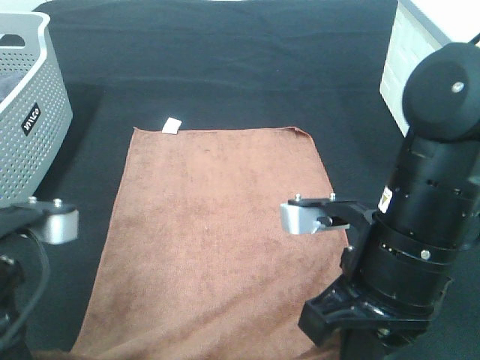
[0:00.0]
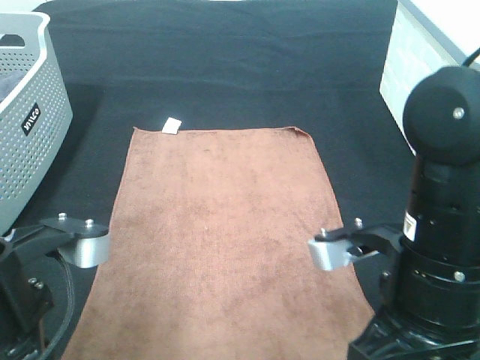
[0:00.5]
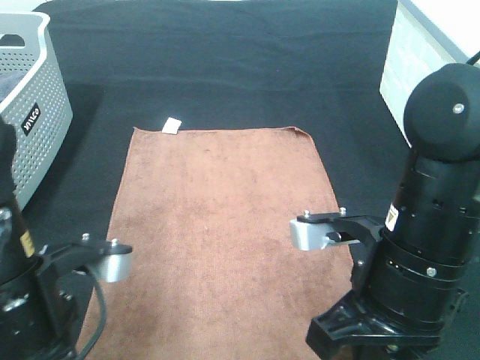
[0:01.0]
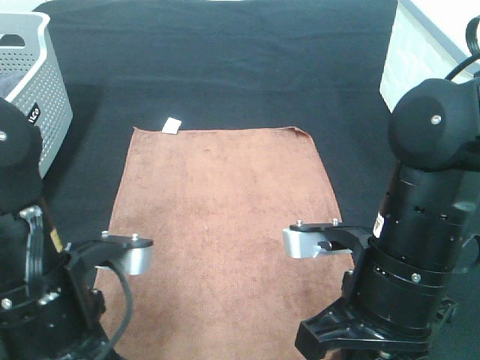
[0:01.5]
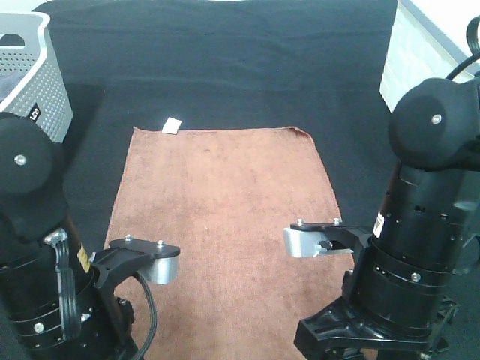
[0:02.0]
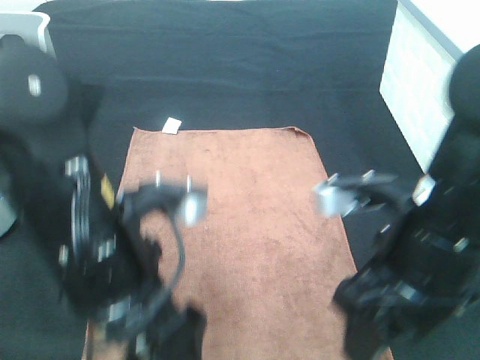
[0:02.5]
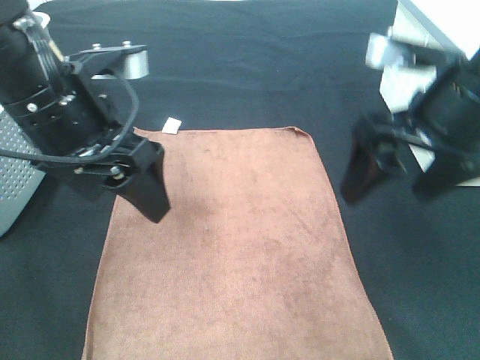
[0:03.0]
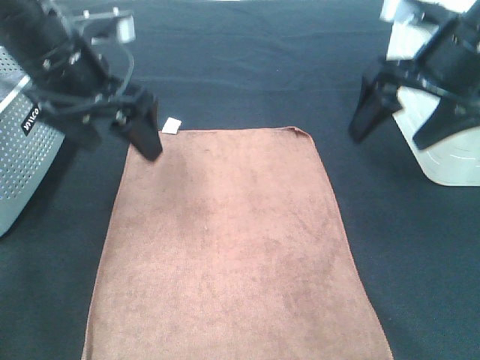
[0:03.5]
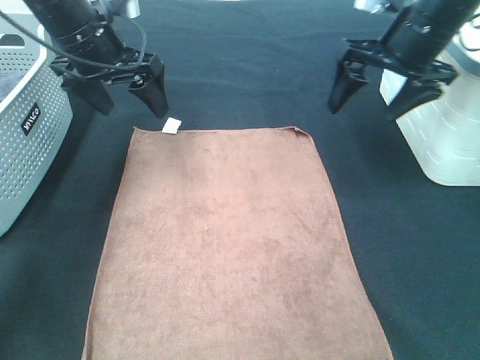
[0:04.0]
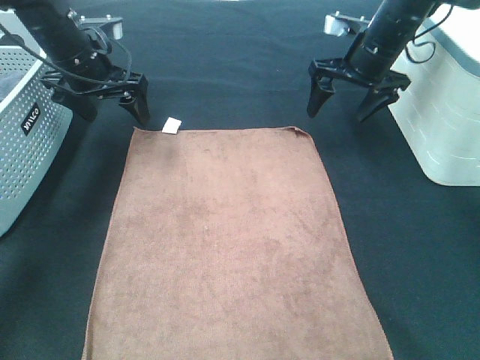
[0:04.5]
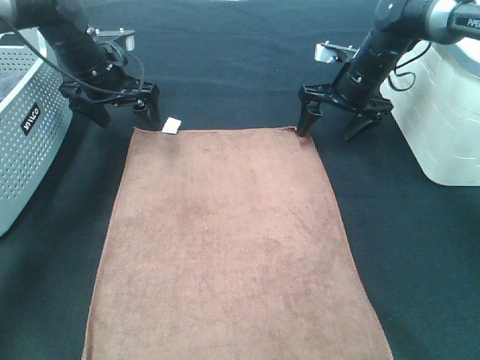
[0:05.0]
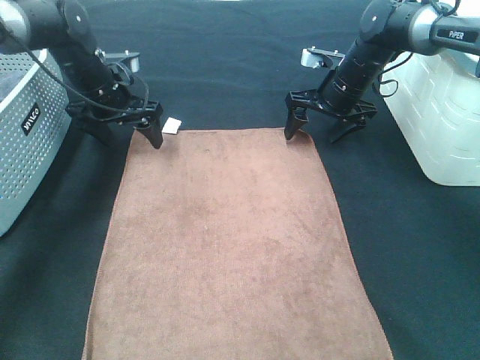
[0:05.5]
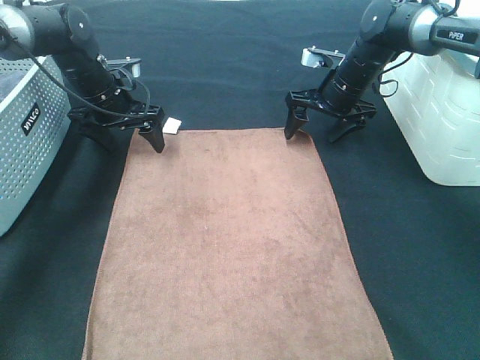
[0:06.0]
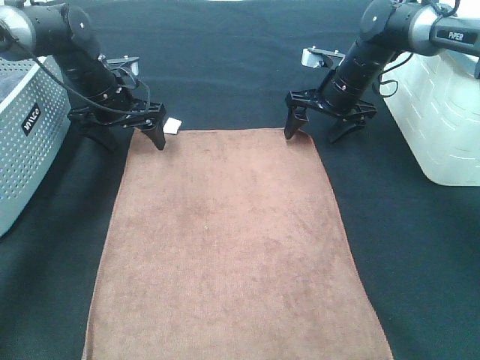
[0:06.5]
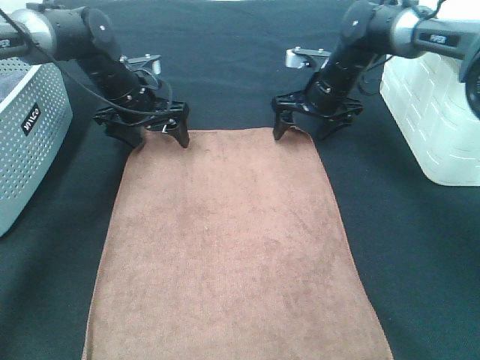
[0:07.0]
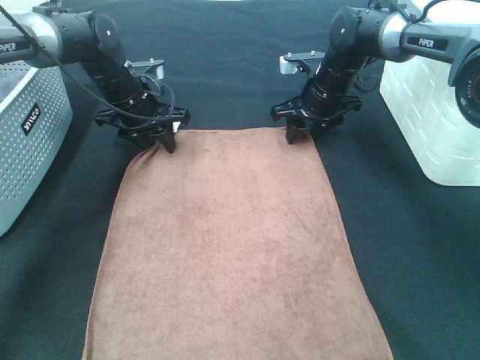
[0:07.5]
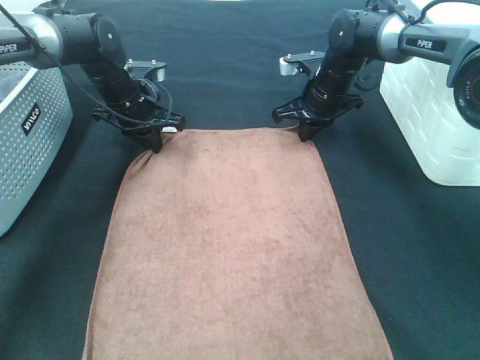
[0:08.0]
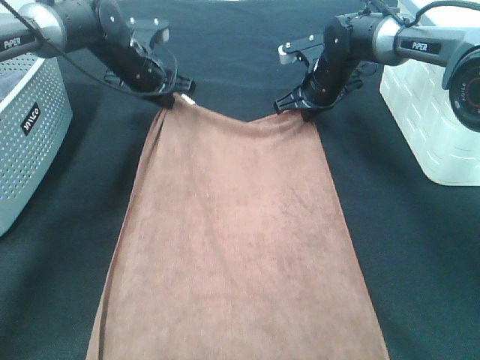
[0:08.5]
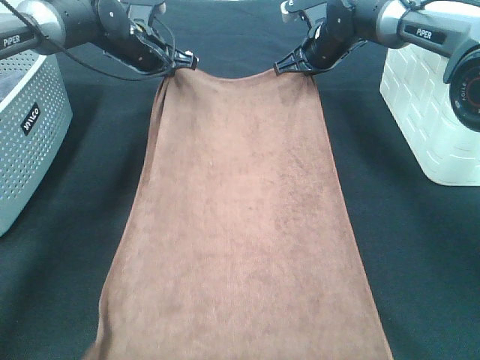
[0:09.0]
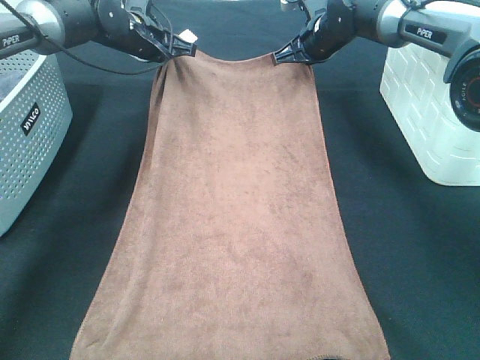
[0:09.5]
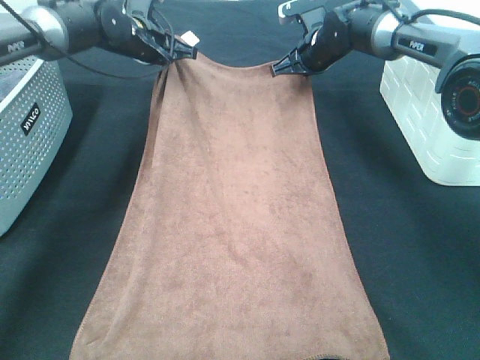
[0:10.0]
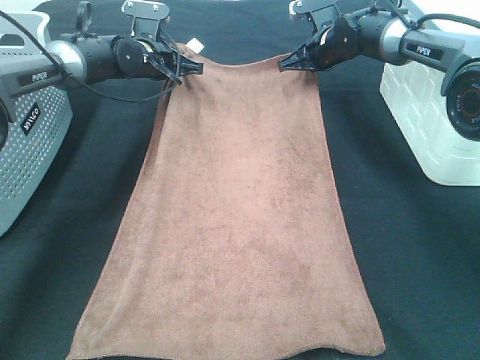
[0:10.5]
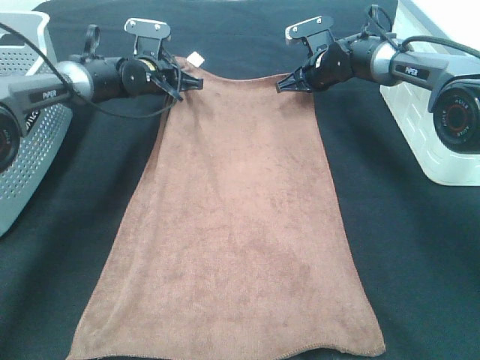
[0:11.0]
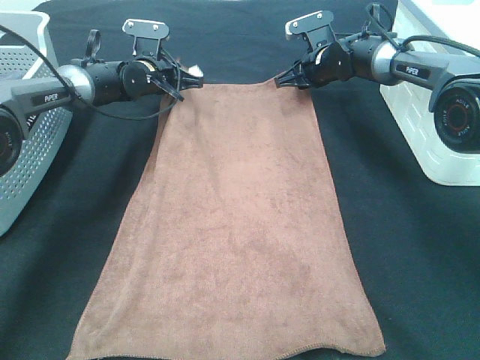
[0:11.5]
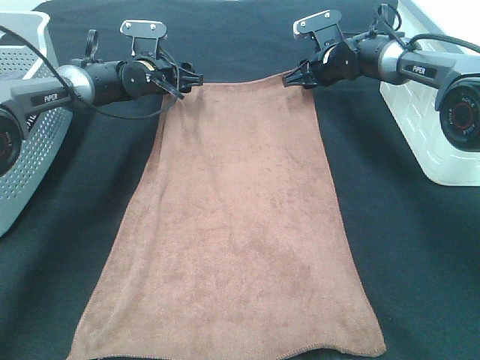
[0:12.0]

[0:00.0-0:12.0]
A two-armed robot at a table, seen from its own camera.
Task of the whole recording: Remove the towel and place it.
Step, 0.0 to 5.0 s: Left hand:adjust the brown towel.
Step, 0.0 to 6.5 s: Right hand:adjust the brown towel.
0.0 to 2.0 s: The left gripper is displaced to the right by about 5 cm, and opens its fingers. The right gripper opens its fingers.
2.0 to 4.0 s: The grippers both shift forward by approximately 25 cm.
4.0 to 6.0 s: Both grippers move downward and forward, some 15 cm.
6.0 to 8.0 s: The left gripper closes. Meanwhile the right gripper closes its fingers.
8.0 to 10.0 s: The right gripper is displaced forward by about 5 cm. The left gripper is displaced forward and upward by some 10 cm.
10.0 to 12.0 s: The left gripper moves downward, some 5 cm, and opens its fingers. Meanwhile the right gripper opens up.

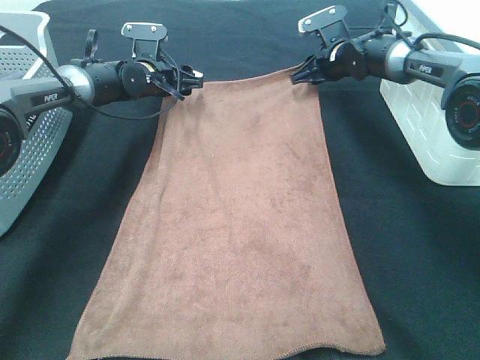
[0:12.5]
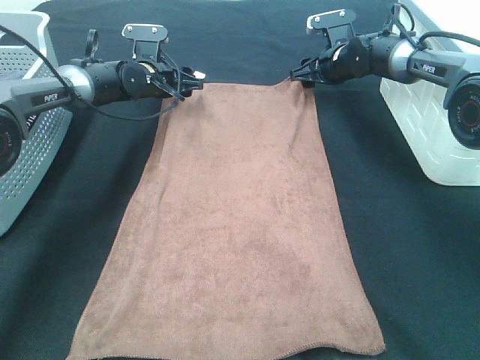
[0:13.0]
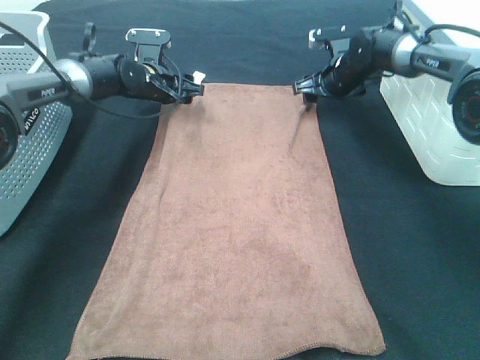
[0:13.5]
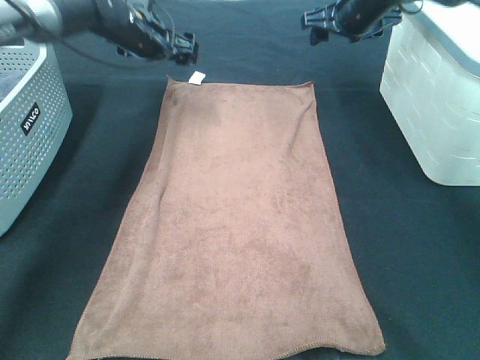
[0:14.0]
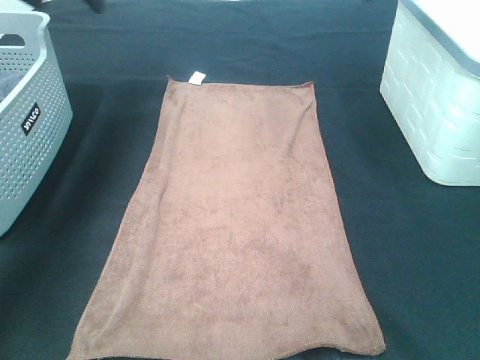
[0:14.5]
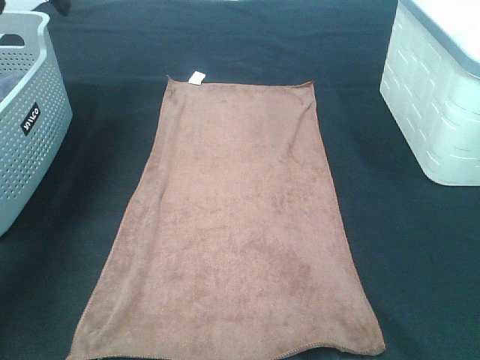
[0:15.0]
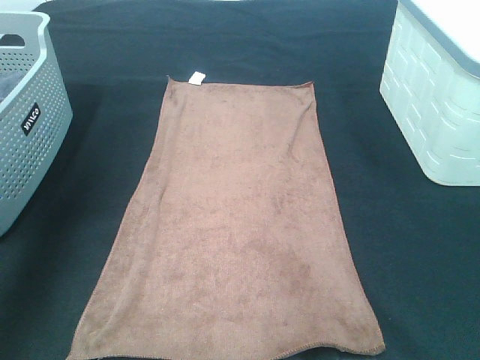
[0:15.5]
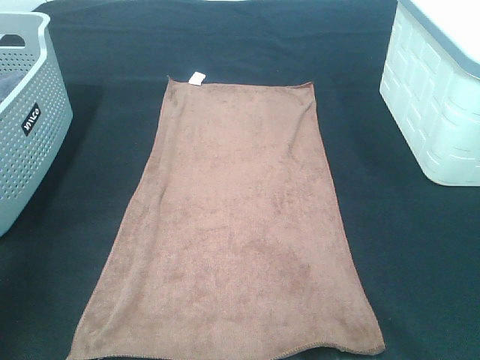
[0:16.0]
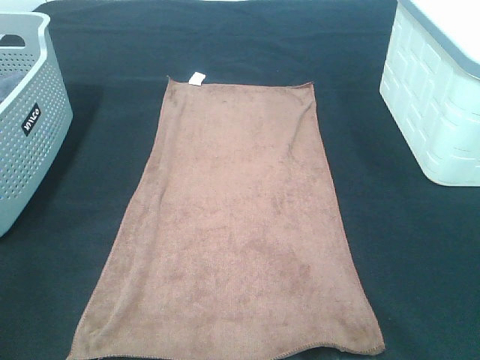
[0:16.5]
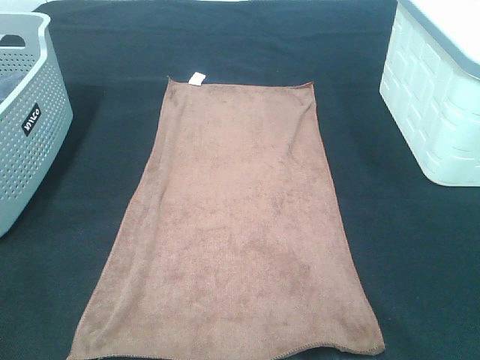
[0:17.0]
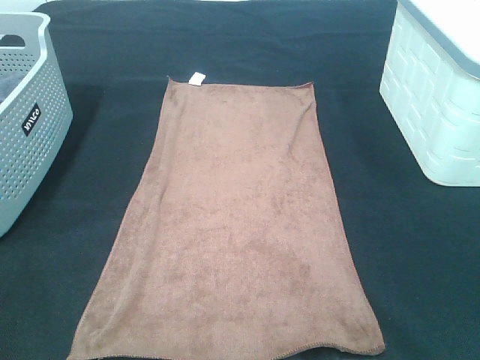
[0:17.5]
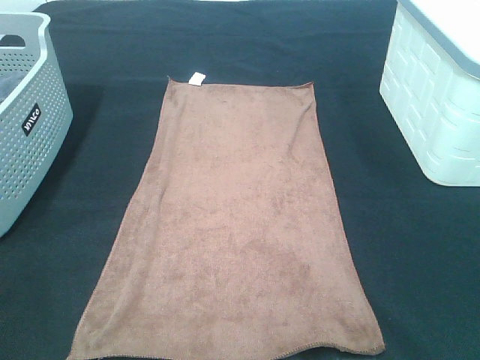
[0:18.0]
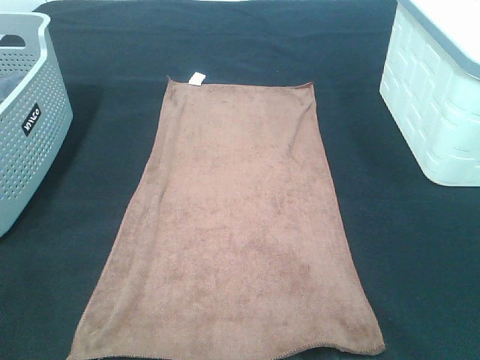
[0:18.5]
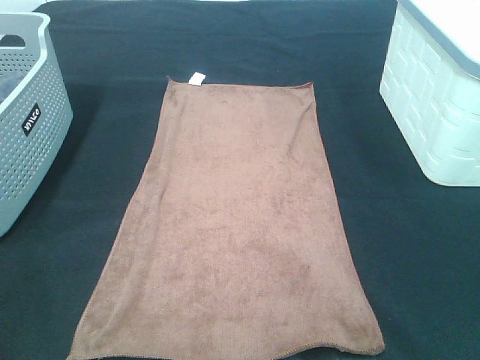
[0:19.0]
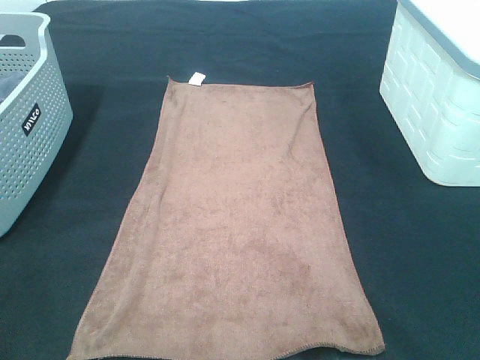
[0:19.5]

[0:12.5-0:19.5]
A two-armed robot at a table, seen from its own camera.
Task of the whole recording: Remove the towel and place it.
12.5 to 14.5 s: The left gripper shifts some 25 cm upward and to the left, while the right gripper shifts roughly 25 cm upward and backward.

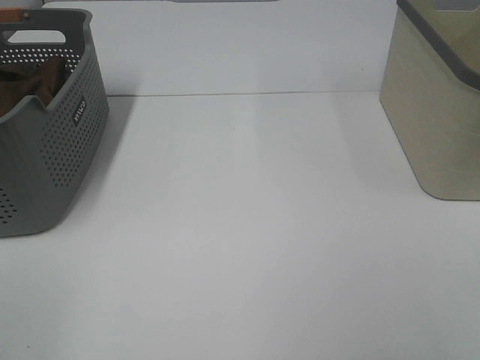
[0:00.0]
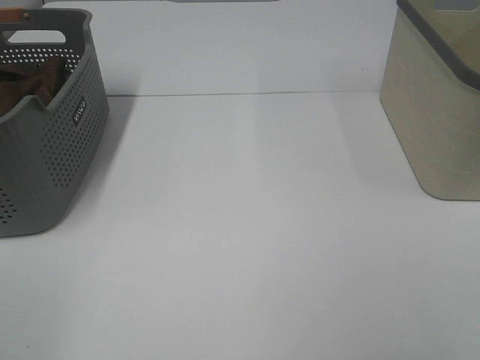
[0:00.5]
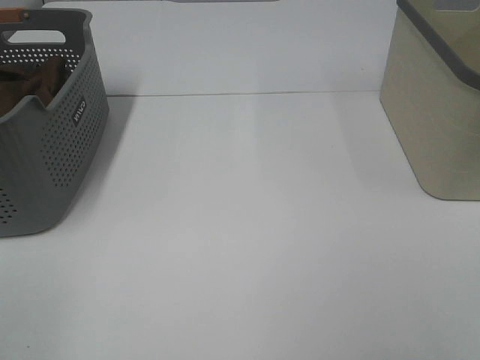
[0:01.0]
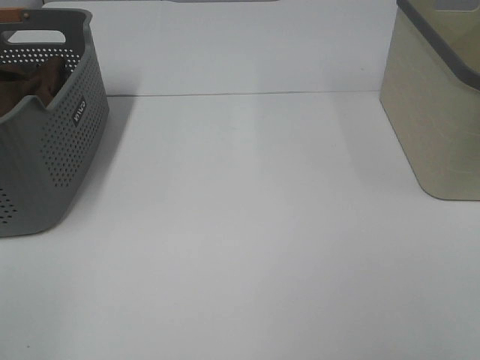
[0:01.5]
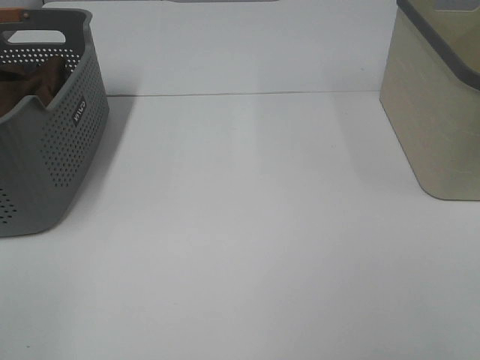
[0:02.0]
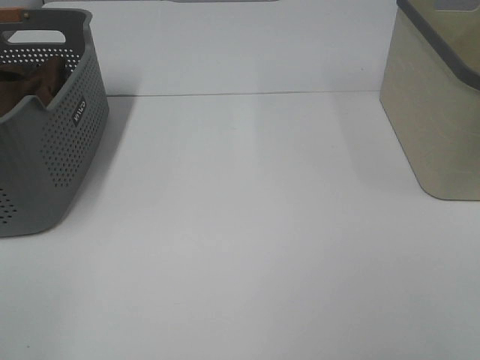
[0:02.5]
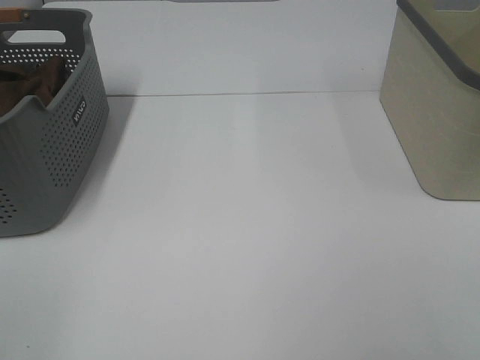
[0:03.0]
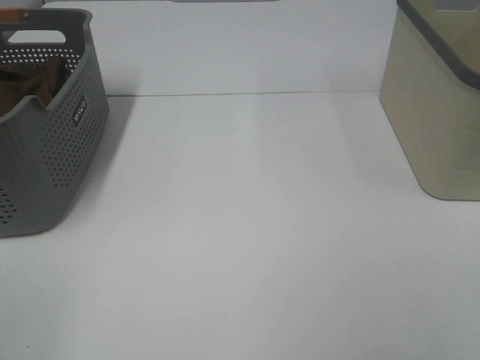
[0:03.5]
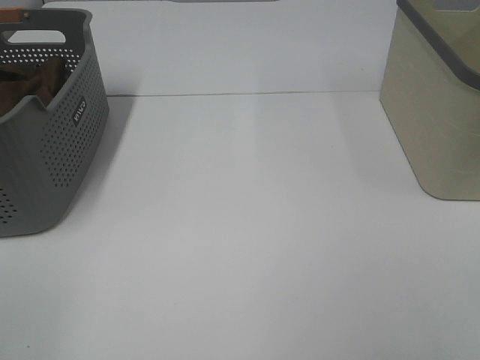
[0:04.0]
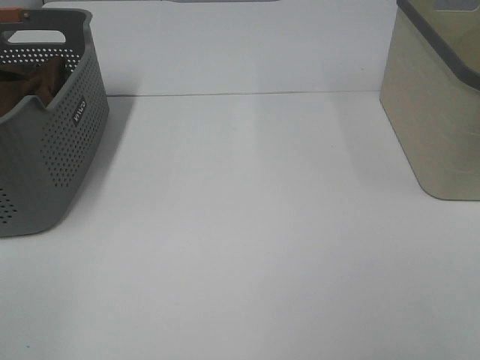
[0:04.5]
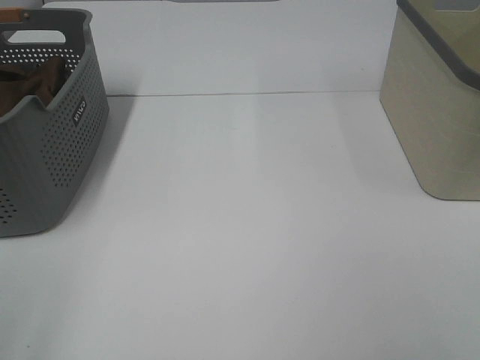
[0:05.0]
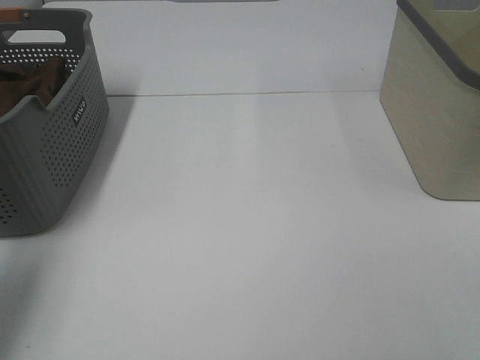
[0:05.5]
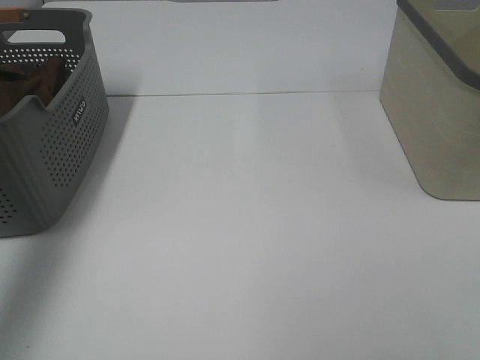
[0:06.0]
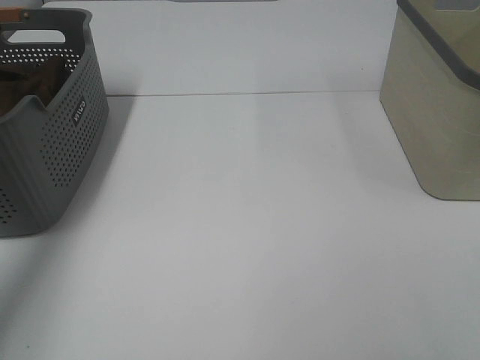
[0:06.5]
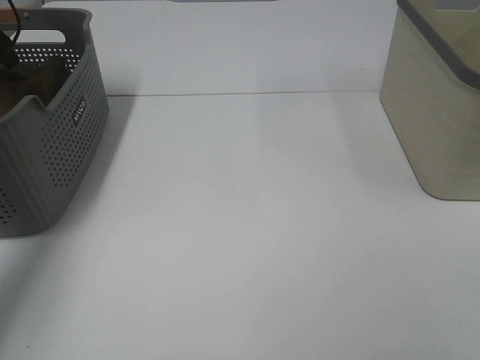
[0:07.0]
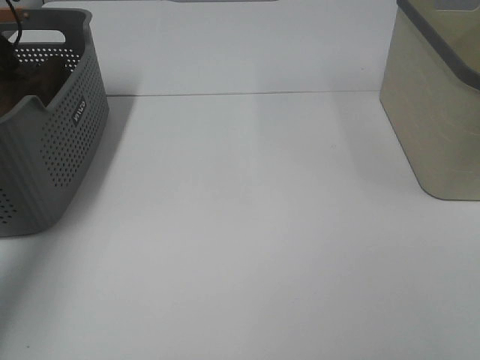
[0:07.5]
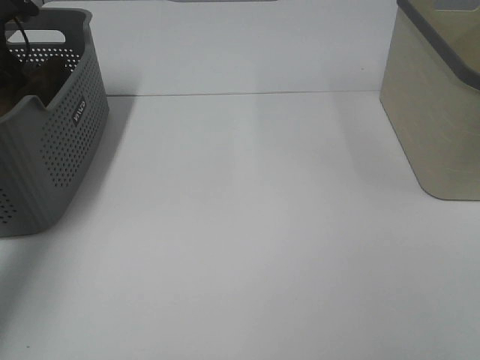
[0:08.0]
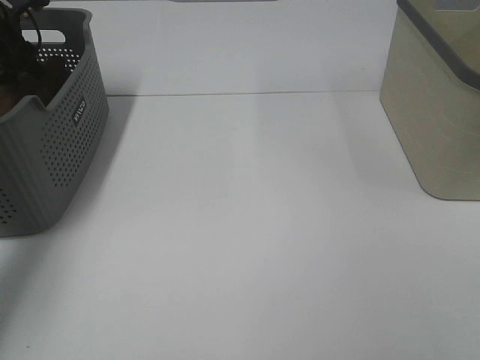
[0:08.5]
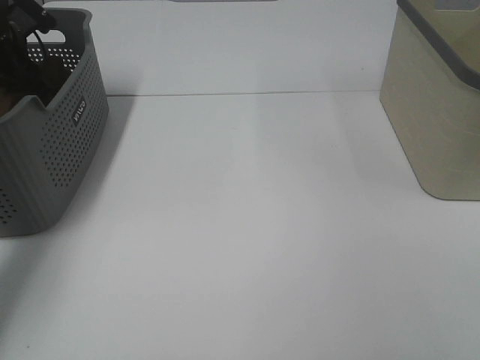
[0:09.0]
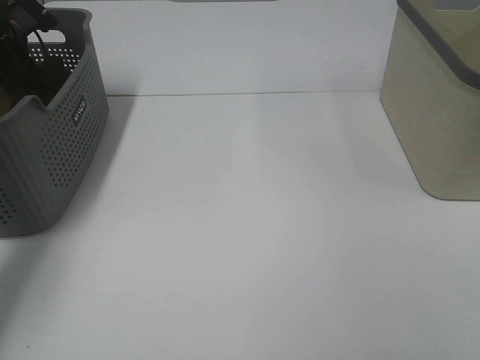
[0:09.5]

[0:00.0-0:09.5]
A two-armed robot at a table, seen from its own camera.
Task of the whole recording: Remove the towel and place it.
0.0 to 4.0 s: Both grippers stay about where they are.
4.0 to 5.5 s: The left gripper goes roughly 20 cm forward.
7.5 to 9.5 s: The left gripper moves downward, roughly 5 cm, and closes its fingers.
